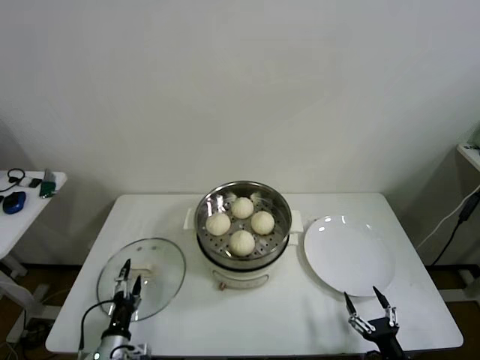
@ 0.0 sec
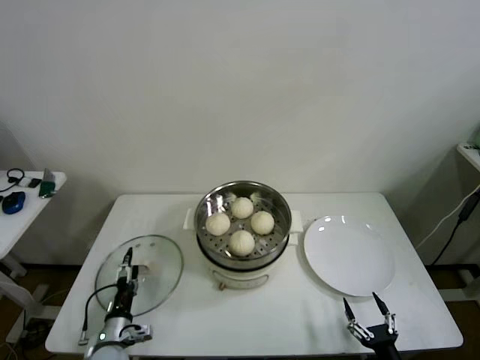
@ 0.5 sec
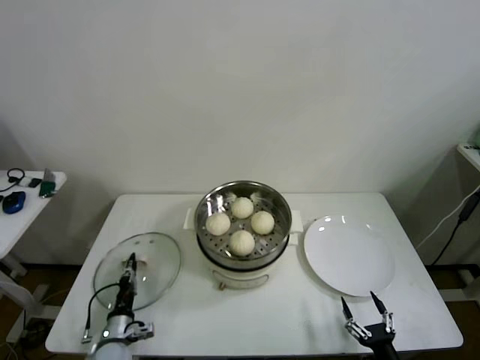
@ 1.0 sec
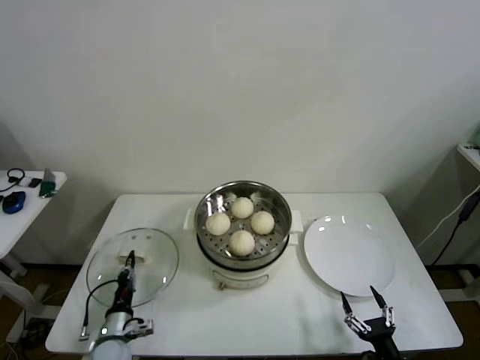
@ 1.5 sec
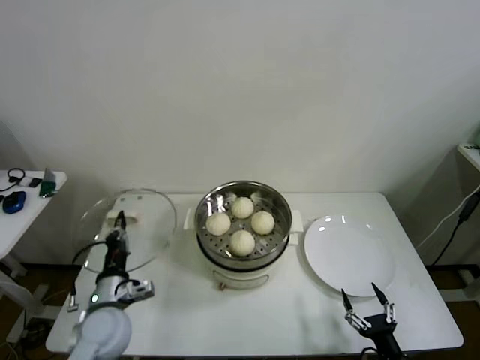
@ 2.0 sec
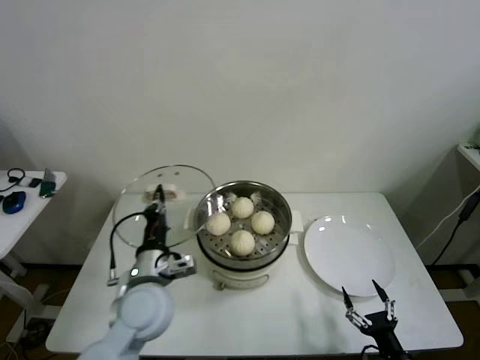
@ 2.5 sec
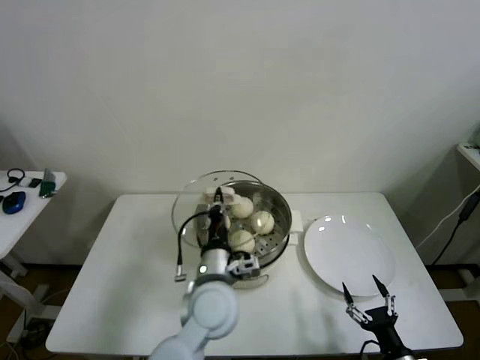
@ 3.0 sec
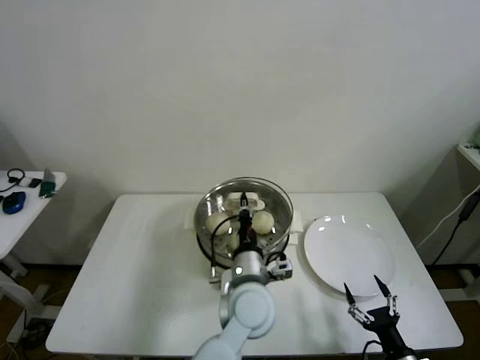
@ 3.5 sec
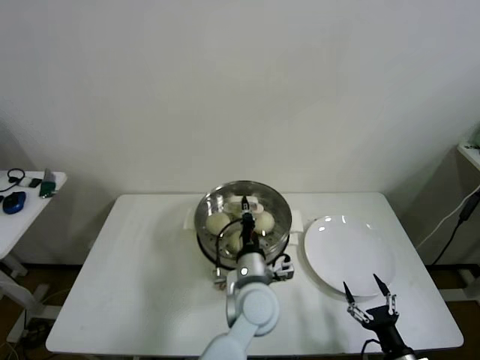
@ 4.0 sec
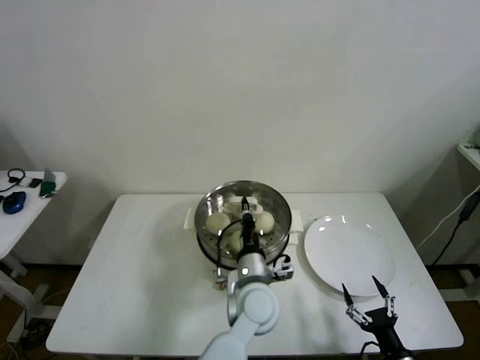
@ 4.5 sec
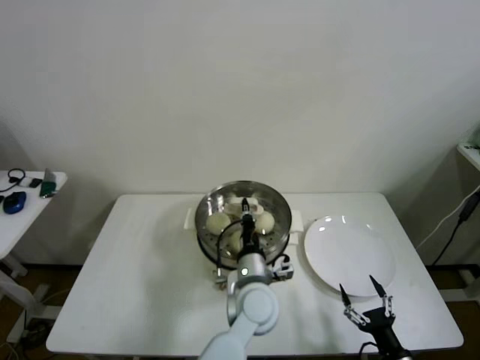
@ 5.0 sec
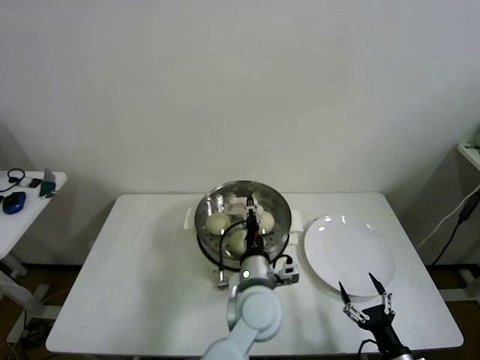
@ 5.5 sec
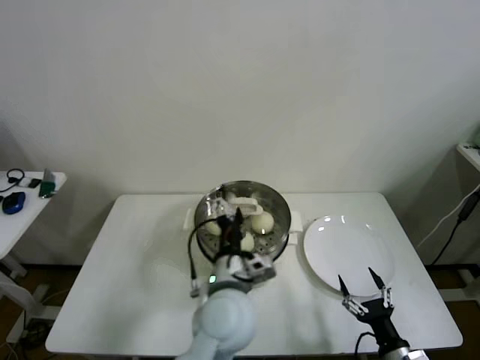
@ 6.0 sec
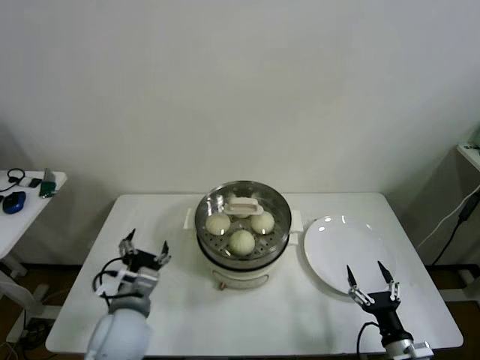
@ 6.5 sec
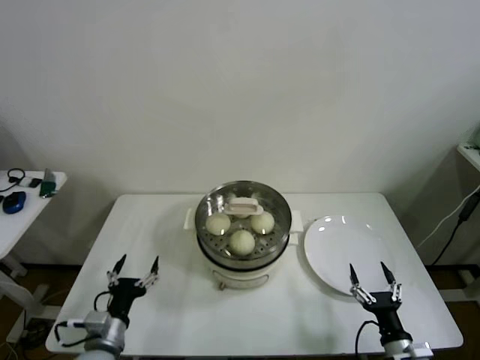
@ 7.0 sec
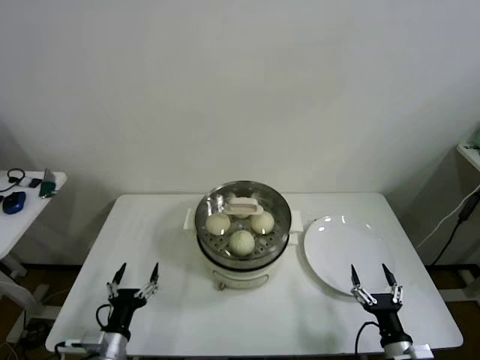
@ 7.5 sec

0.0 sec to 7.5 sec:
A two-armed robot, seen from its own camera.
Step, 1.5 sec to 5.0 sec: Place the pot lid on the steamer with left gripper.
0.0 sec to 2.0 sec: The left gripper goes about 15 cm upward and forward, and closes its fingers.
2.0 sec to 4.0 sec: The left gripper is displaced to the right by roughly 30 cm.
4.0 sec to 5.5 sec: The left gripper opens.
5.5 sec to 7.5 sec: The left gripper is displaced to the left by about 30 cm, and opens up.
